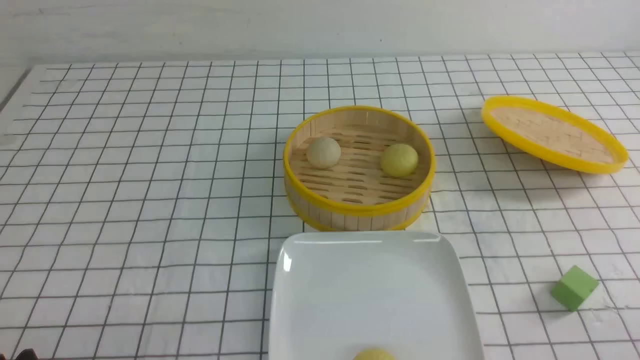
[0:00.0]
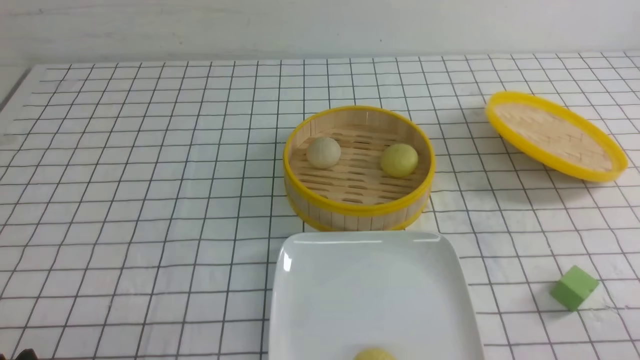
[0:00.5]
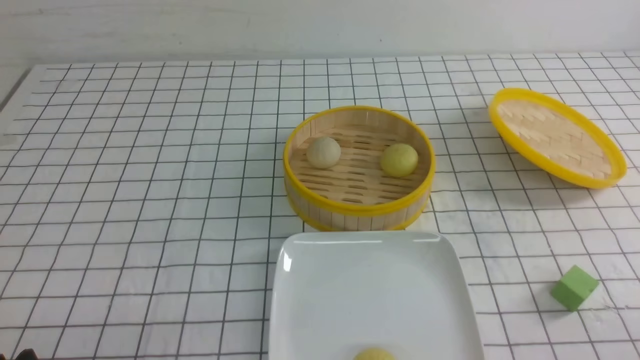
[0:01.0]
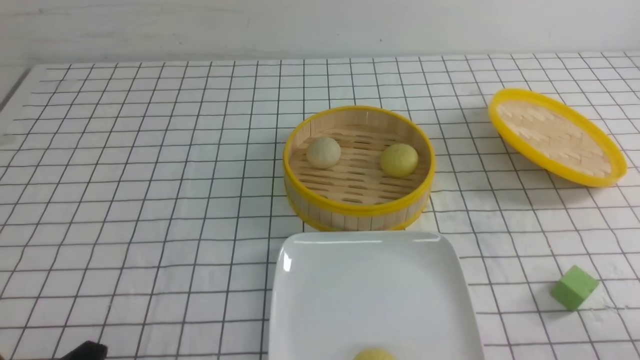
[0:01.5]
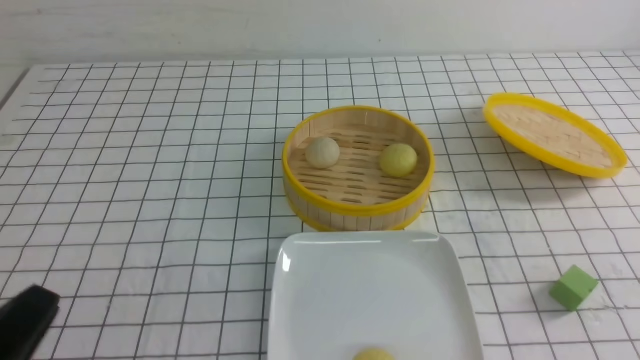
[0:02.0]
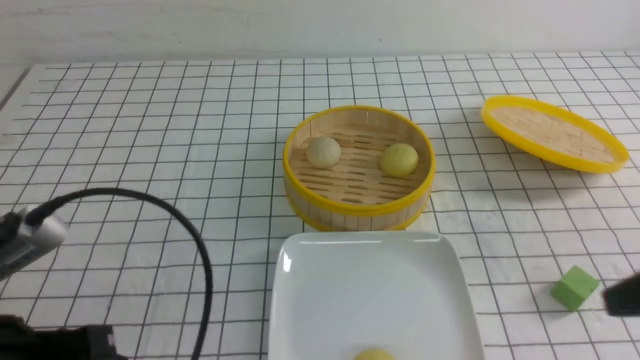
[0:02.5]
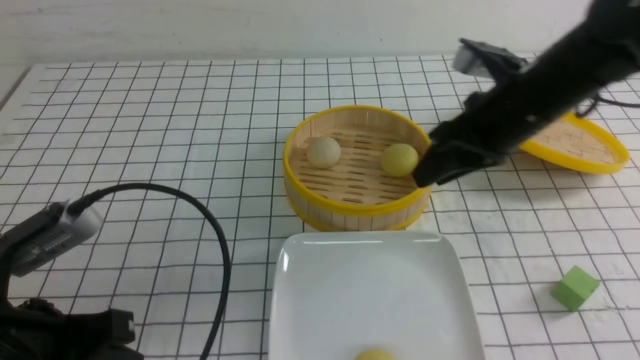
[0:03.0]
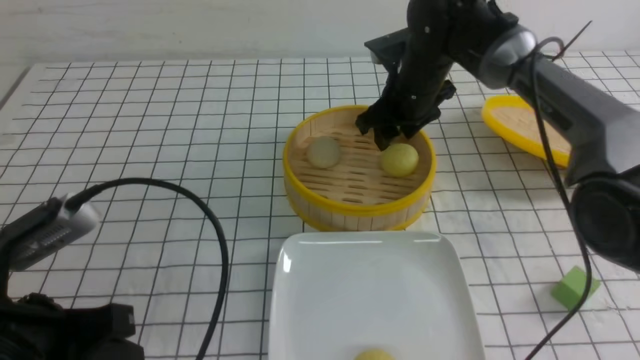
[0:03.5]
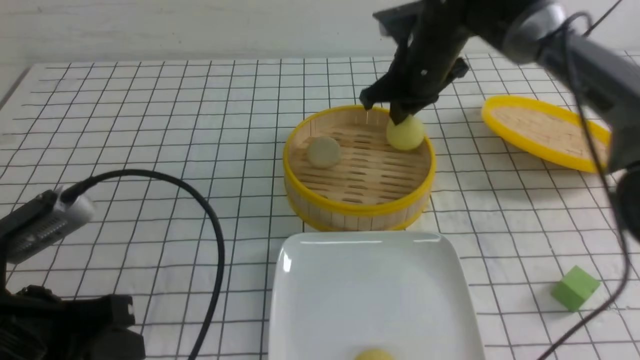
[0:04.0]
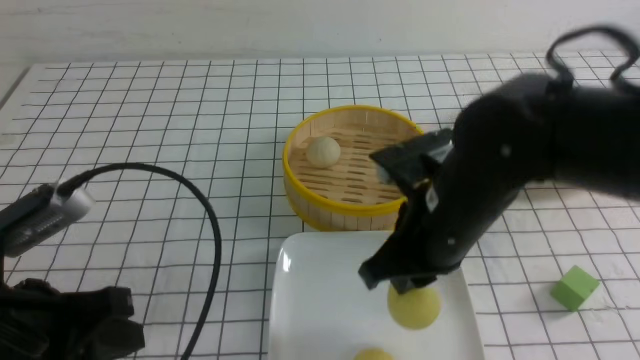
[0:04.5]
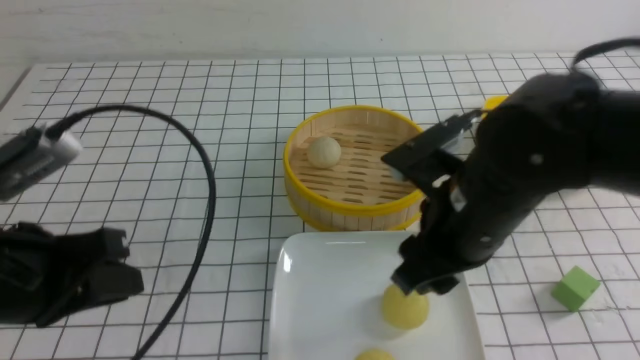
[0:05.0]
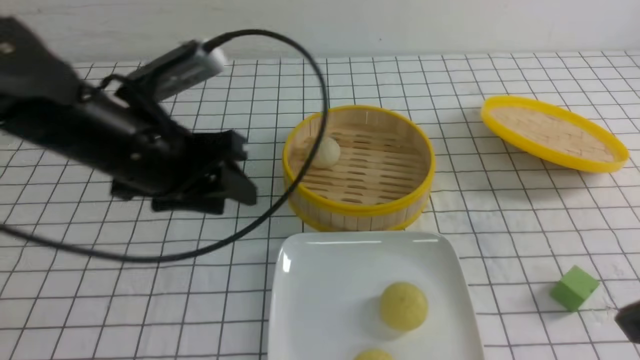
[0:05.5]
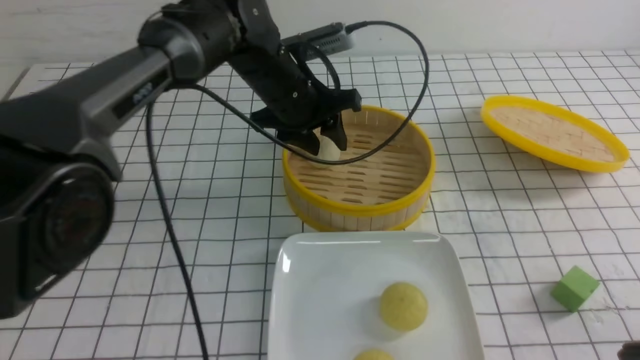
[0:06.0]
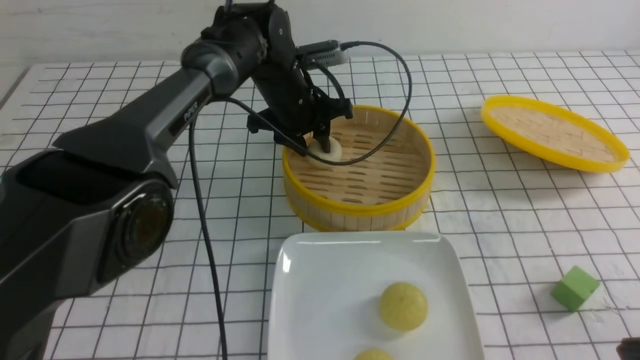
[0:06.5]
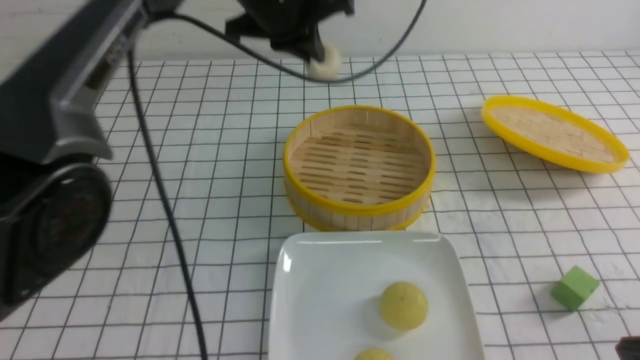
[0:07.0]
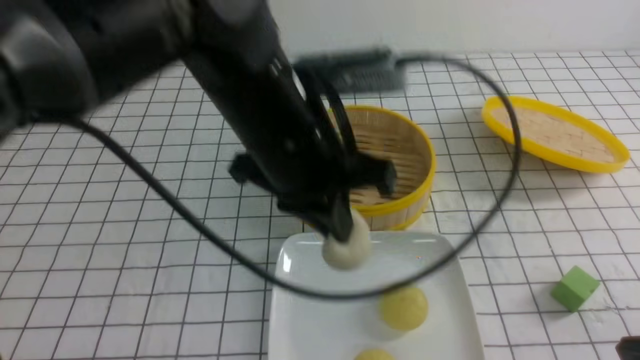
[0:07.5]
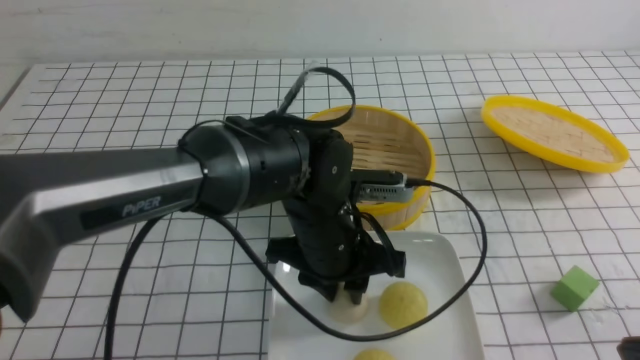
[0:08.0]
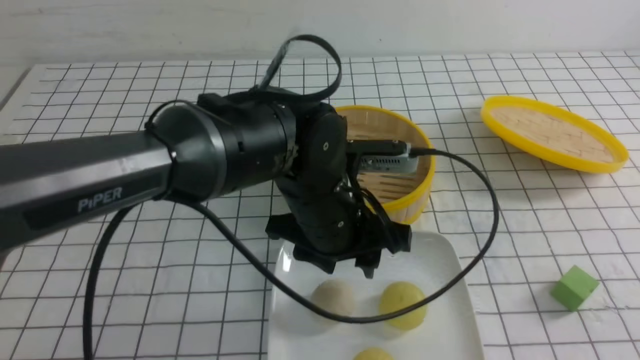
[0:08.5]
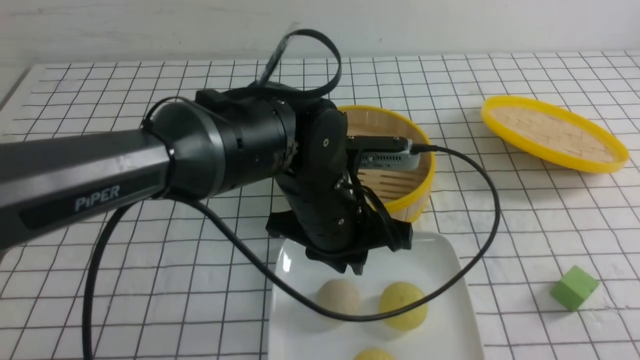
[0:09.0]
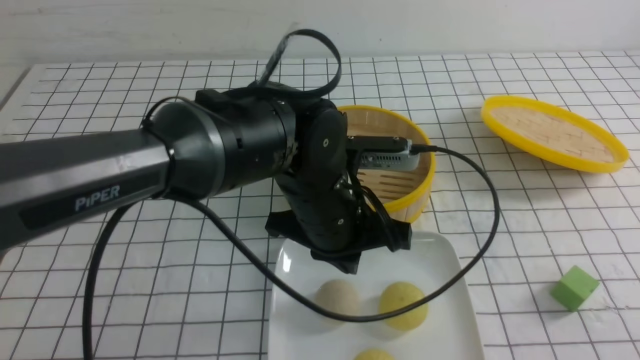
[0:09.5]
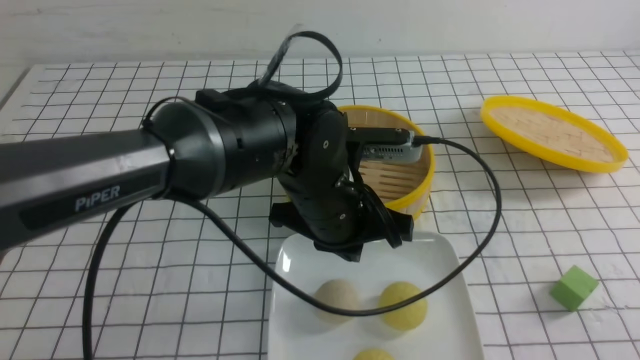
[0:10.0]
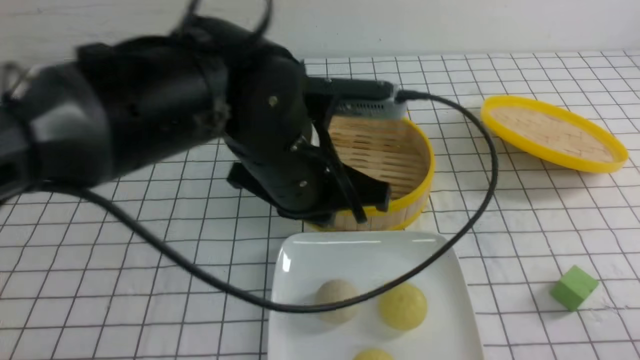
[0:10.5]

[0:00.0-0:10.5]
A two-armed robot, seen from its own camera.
Step, 0:00.0 to 0:03.5: use the right arm to grab the steamed stuffed bun that is closest to it.
Step, 0:04.0 to 0:04.5: use the right arm to put the steamed stuffed bun into the plate.
Step, 0:05.5 to 0:06.5: use the left arm to grab the steamed stuffed bun that is closest to it.
Step, 0:07.0 to 0:08.5: use the left arm to put the steamed stuffed bun into the plate.
0:00.0 to 0:02.0: The left gripper moves upward, some 5 cm.
0:02.0 to 0:04.0: The left gripper shifts approximately 10 cm forward. Meanwhile the right gripper goes about 40 cm forward and to the left, and opens and closes again.
0:04.0 to 0:06.5: The right gripper goes roughly 40 cm backward and to the right, and opens and closes again; the left gripper shifts roughly 40 cm forward and to the right, and opens its fingers.
0:06.5 to 0:08.5: The right gripper is displaced backward, to the right and upward by about 10 cm; the left gripper shifts some 20 cm backward, and opens.
0:08.5 to 0:10.5: The left gripper travels upward by approximately 10 cm, and closes up. Meanwhile the right gripper shifts some 15 cm downward.

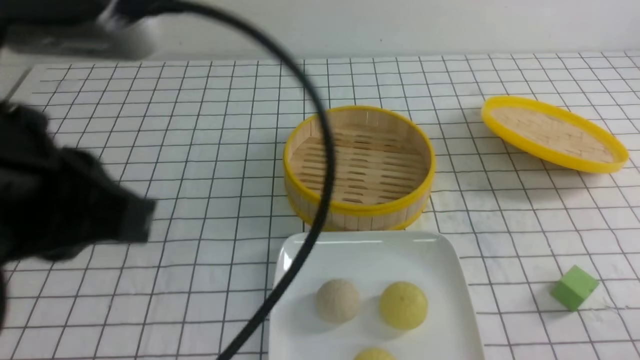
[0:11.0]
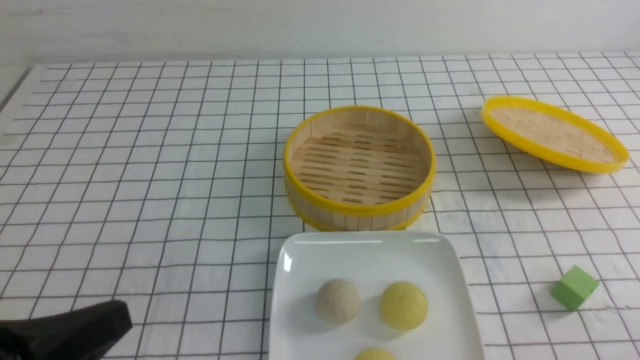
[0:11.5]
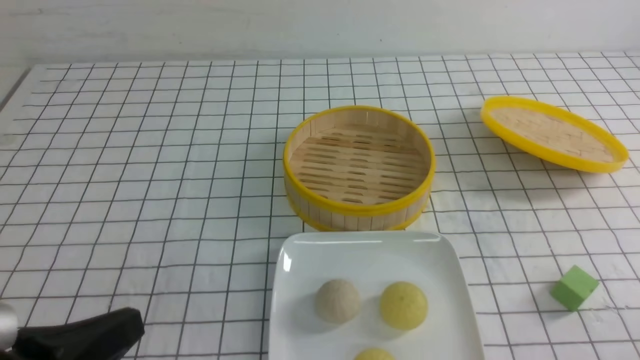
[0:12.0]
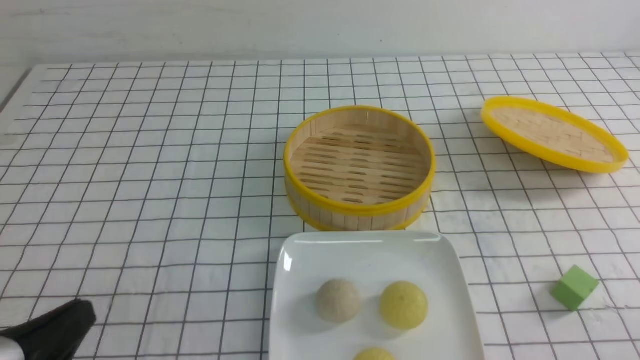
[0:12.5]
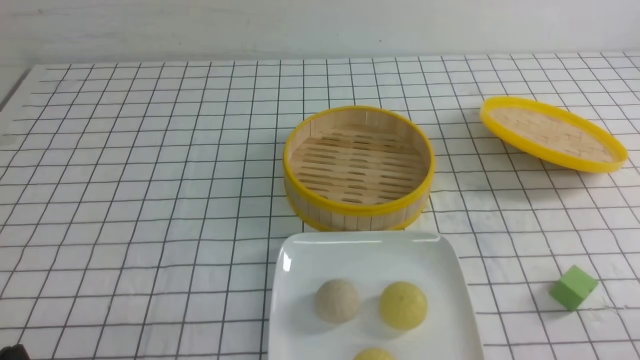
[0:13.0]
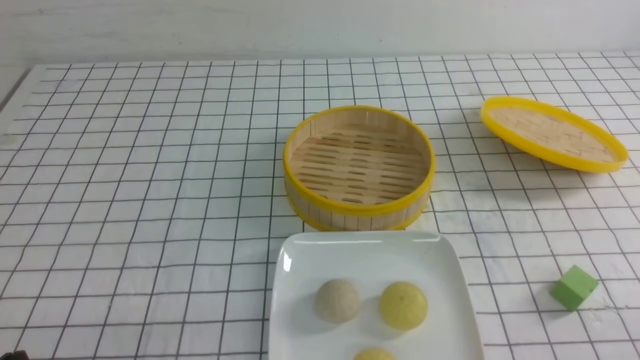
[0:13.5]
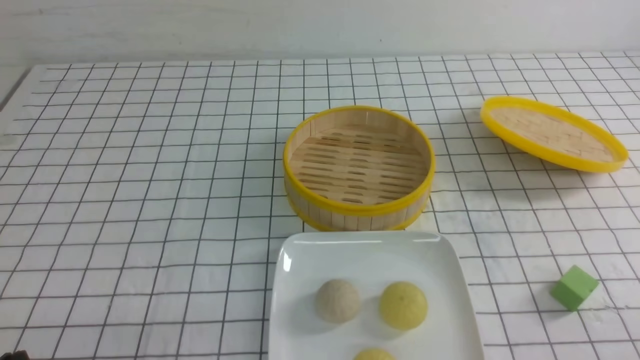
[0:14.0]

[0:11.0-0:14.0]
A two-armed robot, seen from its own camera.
0:11.0 to 0:12.5: The left gripper heads downward, covering about 15 cm.
0:12.5 to 0:14.0: The left gripper heads downward, covering some 5 cm.

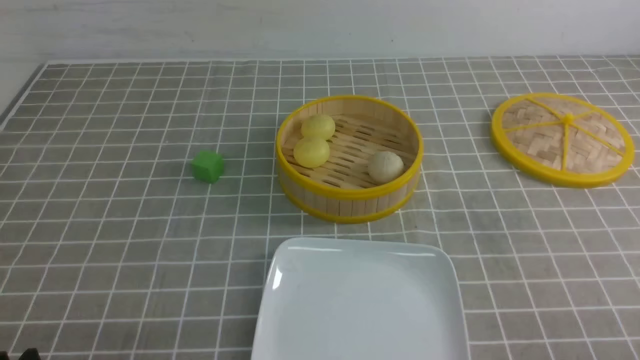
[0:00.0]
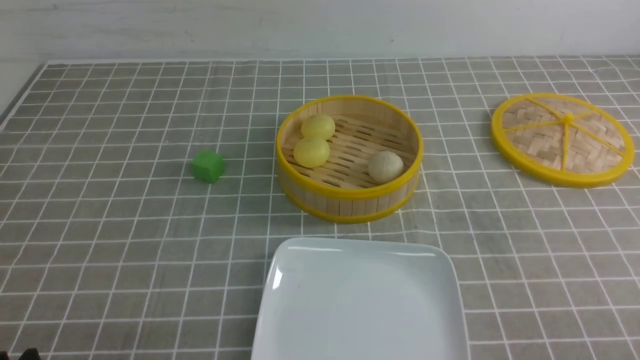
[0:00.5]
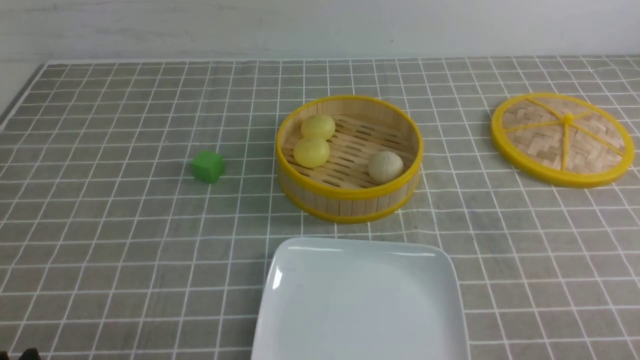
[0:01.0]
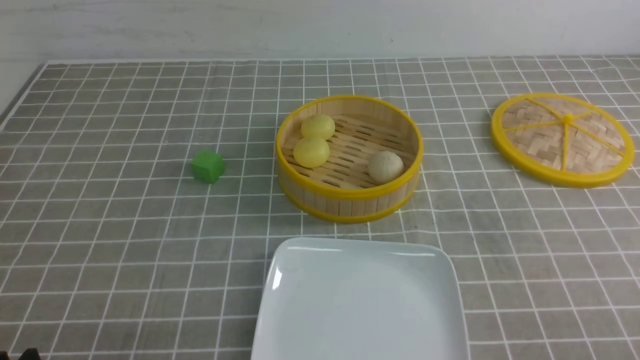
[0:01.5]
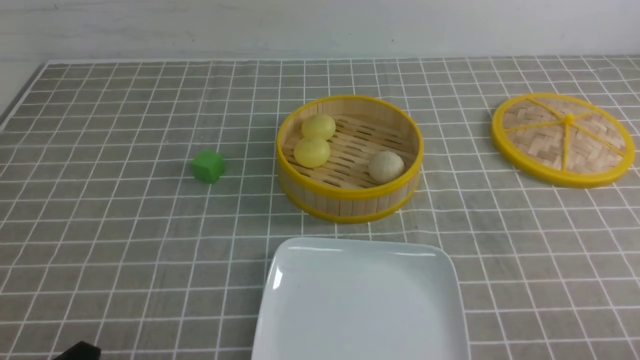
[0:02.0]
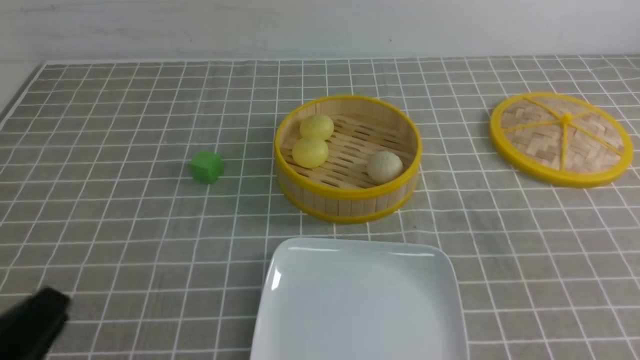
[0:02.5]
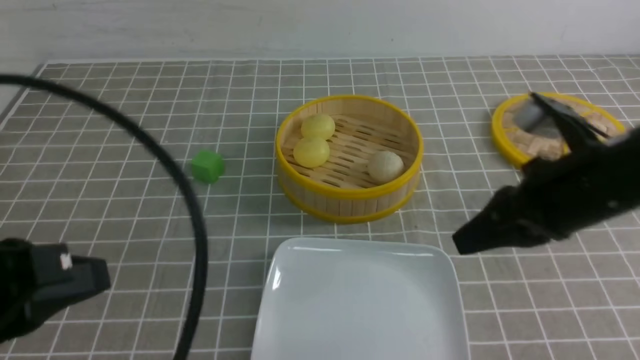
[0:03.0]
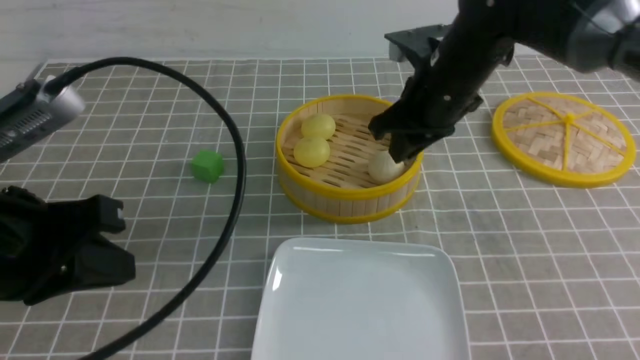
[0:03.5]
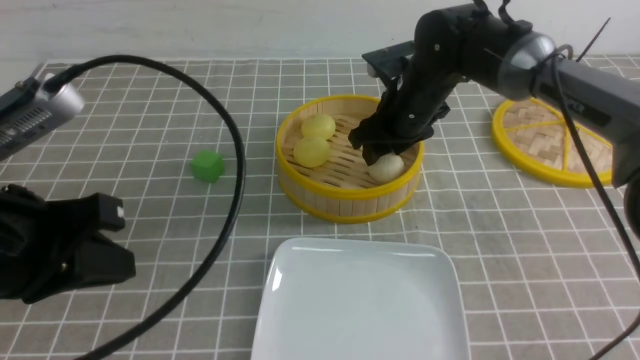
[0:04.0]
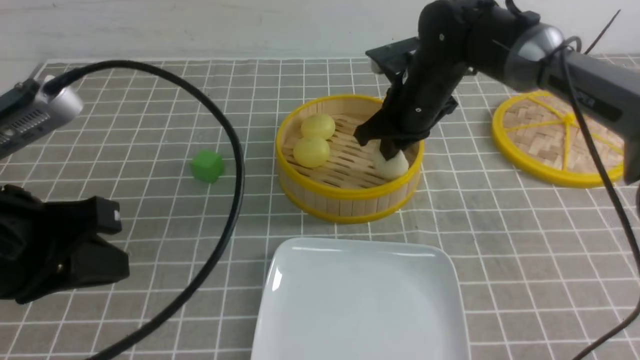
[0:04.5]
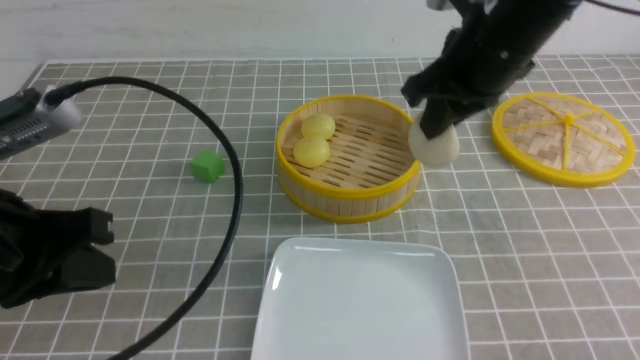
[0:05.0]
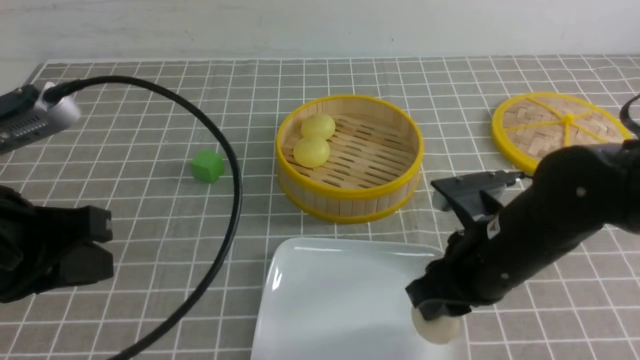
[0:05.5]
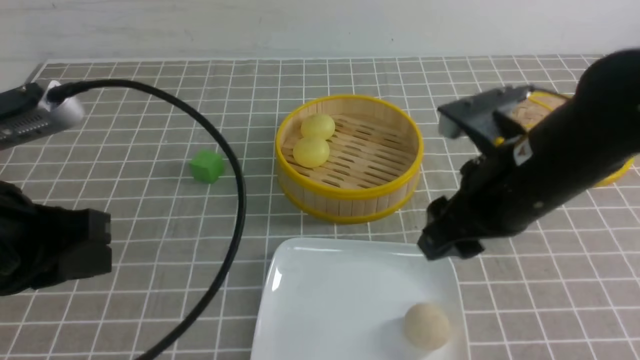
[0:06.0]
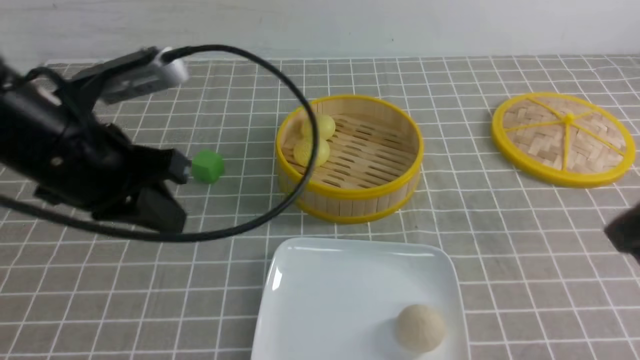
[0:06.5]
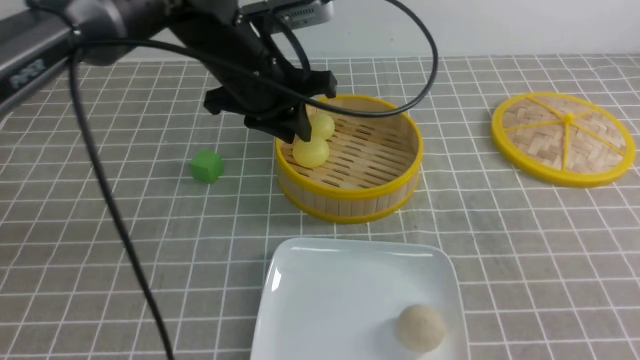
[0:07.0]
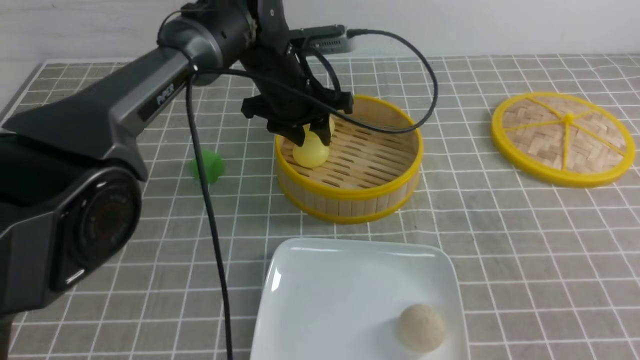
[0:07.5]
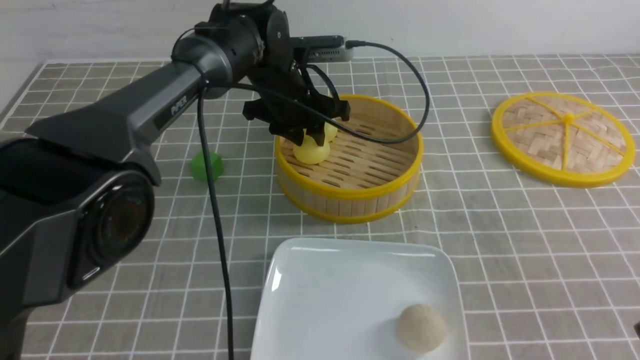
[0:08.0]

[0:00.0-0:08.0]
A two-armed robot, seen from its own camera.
Step, 0:00.0 to 0:04.5: use the right arm to grab the steamed stuffed bun that is closest to it.
Step, 0:05.0 to 0:05.5: use the right arm to put the steamed stuffed bun into the plate.
0:02.0 to 0:04.0: The left gripper heads upward and forward, covering approximately 20 cm, and closes its fingers; the right gripper shifts about 40 cm forward and to the left, and opens up.
0:04.0 to 0:06.0: The right gripper moves backward, about 20 cm, and closes and opens again.
0:06.0 to 0:08.0: The right gripper heads backward and to the right, covering about 20 cm, and closes; the left gripper is displaced forward and to the right by approximately 35 cm.
